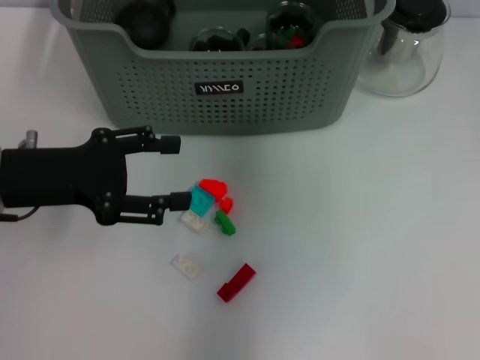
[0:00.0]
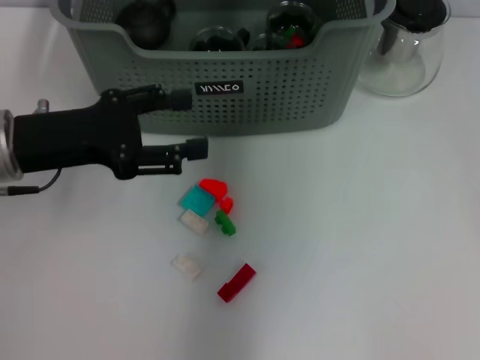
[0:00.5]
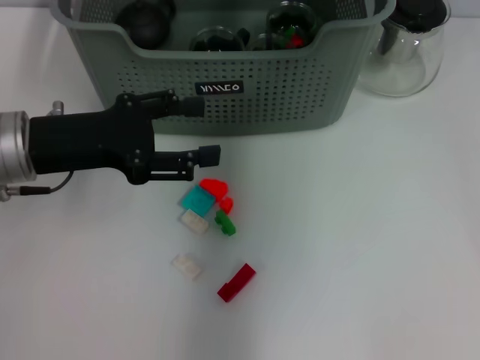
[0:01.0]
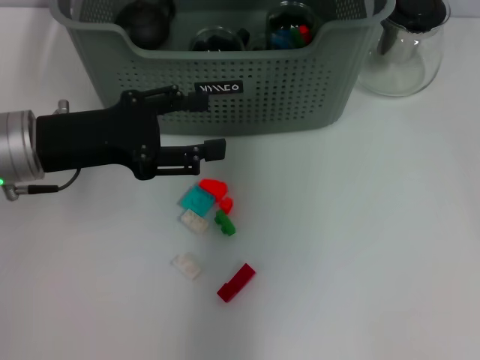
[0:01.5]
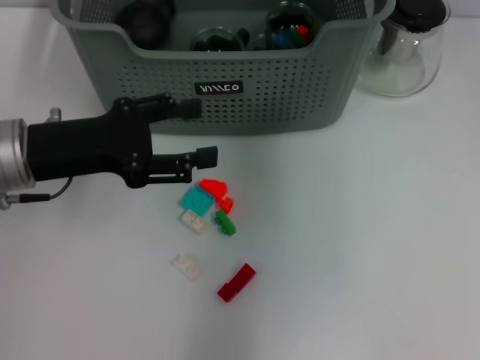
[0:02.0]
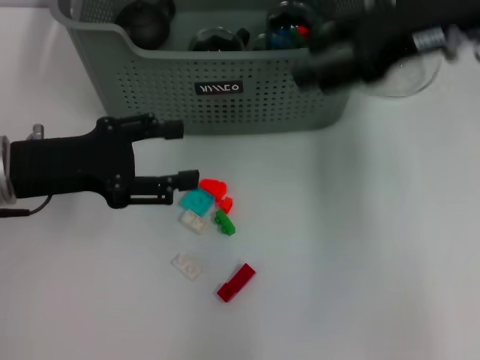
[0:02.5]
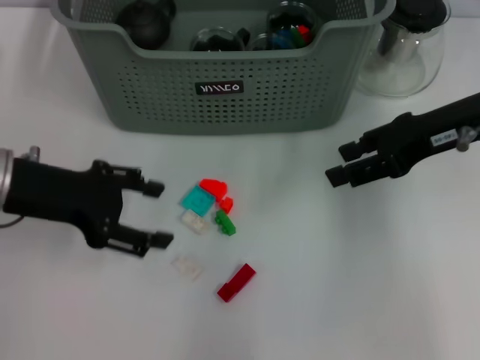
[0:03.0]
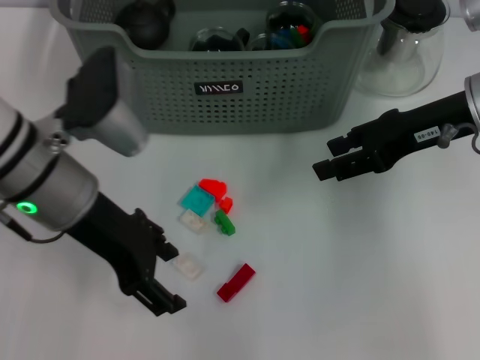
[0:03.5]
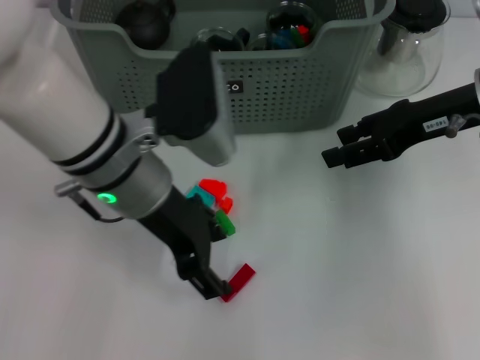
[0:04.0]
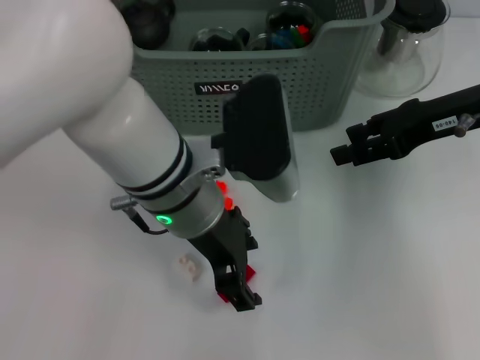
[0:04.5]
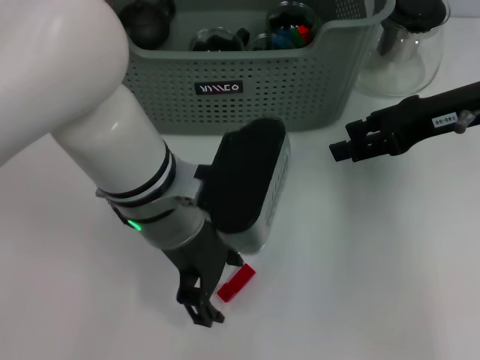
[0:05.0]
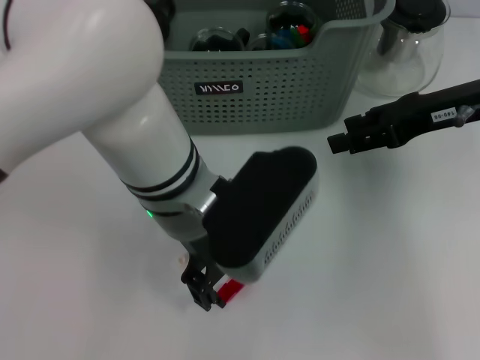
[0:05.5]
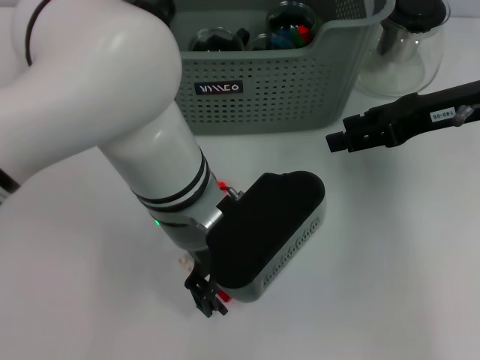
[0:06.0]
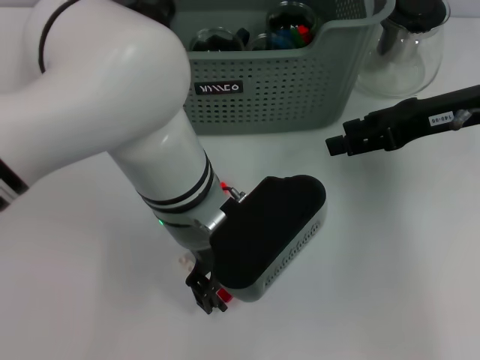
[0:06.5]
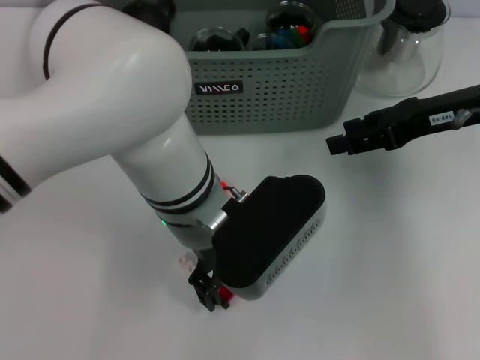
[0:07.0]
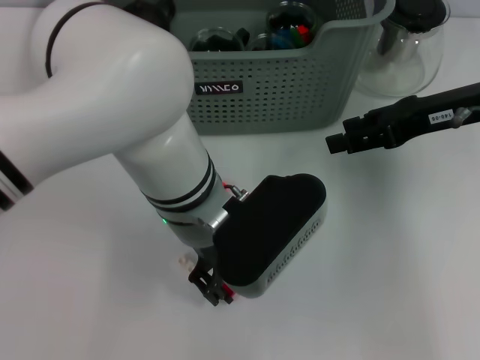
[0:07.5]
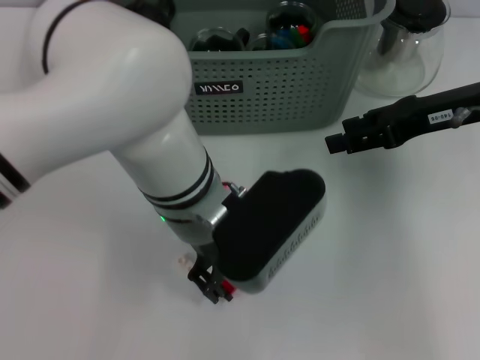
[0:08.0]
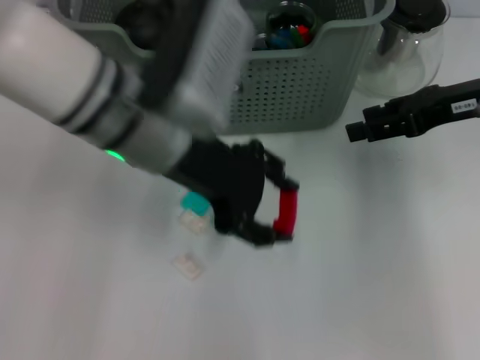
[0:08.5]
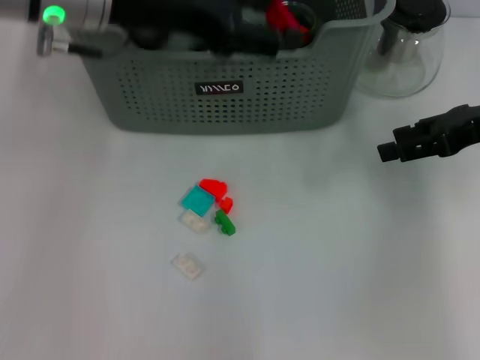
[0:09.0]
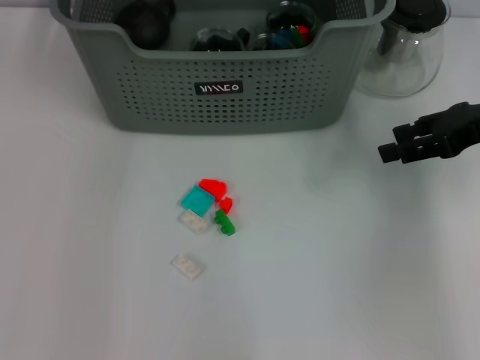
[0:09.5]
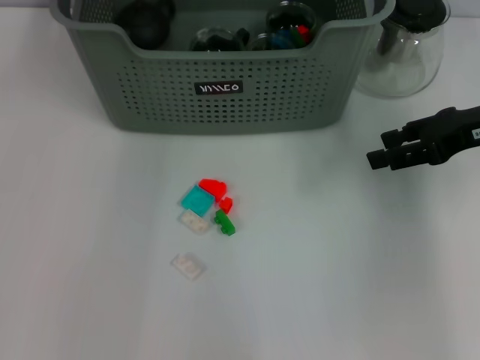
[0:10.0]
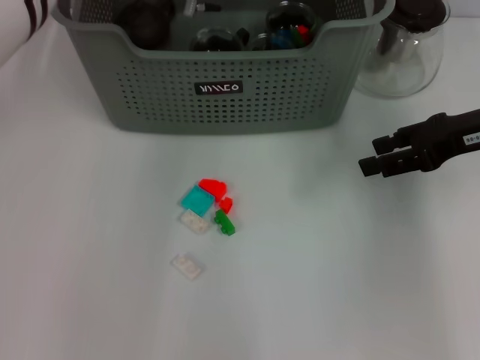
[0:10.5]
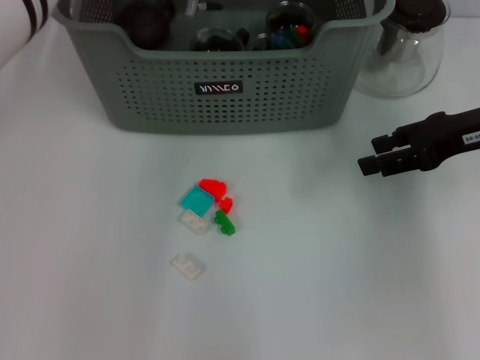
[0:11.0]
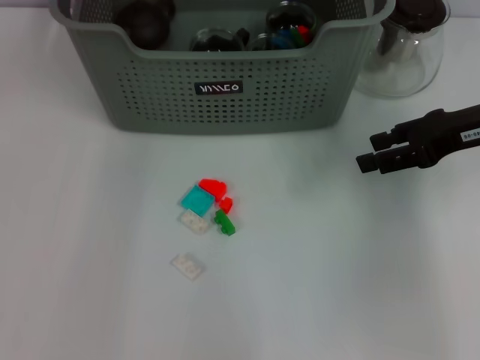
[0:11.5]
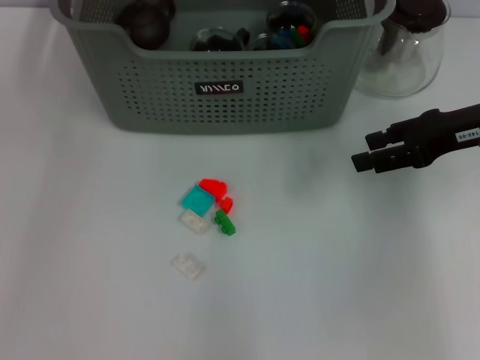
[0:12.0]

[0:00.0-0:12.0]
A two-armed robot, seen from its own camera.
Task of the whole recording: pick up the teacup on the table and place it into the storage bin, pick up the block on the table and place it into the storage bin.
Step, 1.5 to 7.5 s: Grasp the red block with right gripper.
Step, 8.0 to 11.0 s: Place the red block in the storage box with right gripper.
2.0 to 4.0 s: The right gripper is displaced downward, to the right and backward by some 20 cm. Meanwhile the left gripper travels to the right by approximately 15 cm.
4.0 to 6.0 s: The left gripper is displaced to the right by approximately 5 cm.
6.0 to 8.0 s: The grippers stay close to where they were, moving slightly.
8.0 to 10.0 s: The left gripper goes about 20 cm forward and upward.

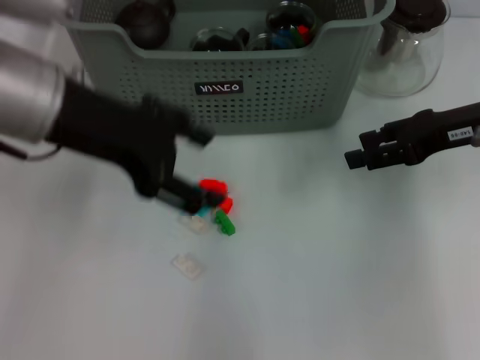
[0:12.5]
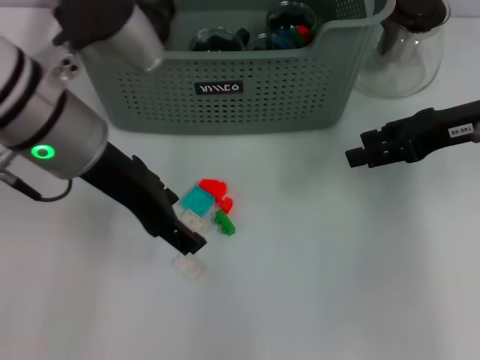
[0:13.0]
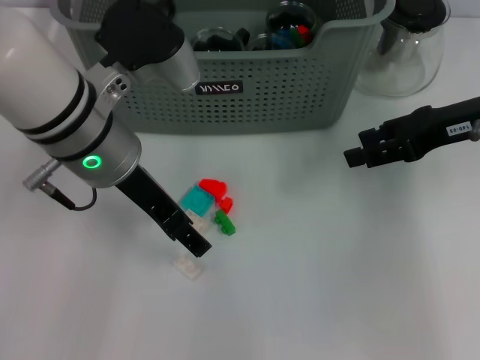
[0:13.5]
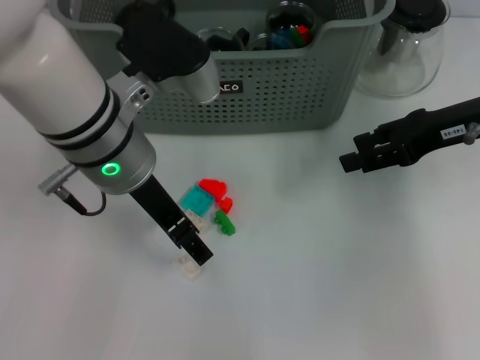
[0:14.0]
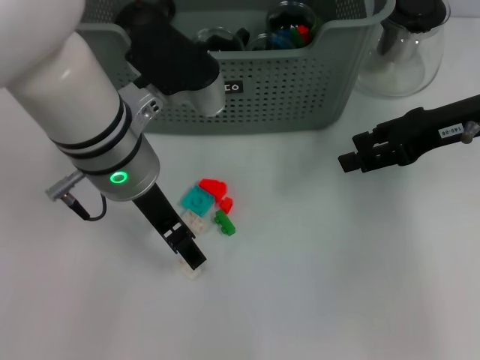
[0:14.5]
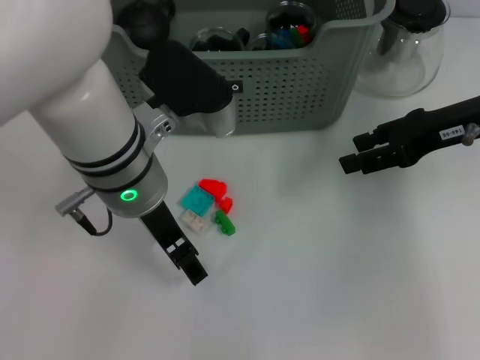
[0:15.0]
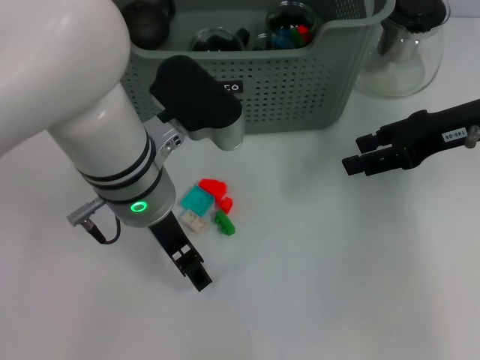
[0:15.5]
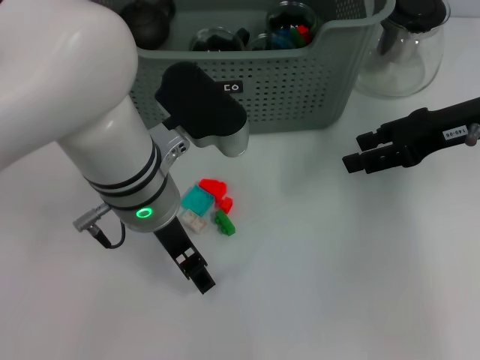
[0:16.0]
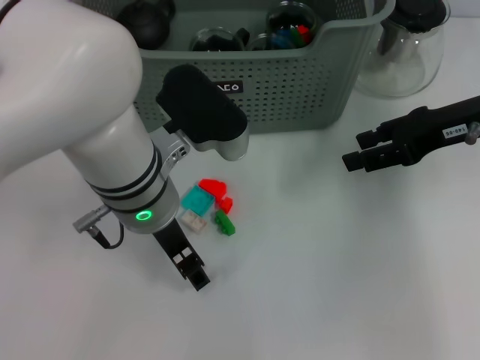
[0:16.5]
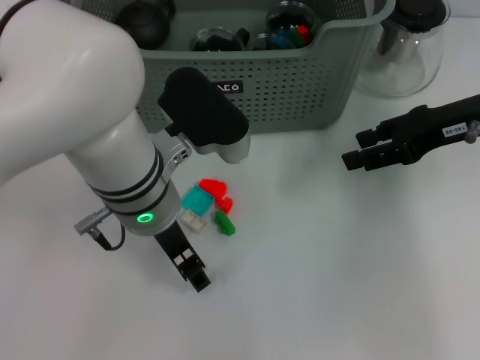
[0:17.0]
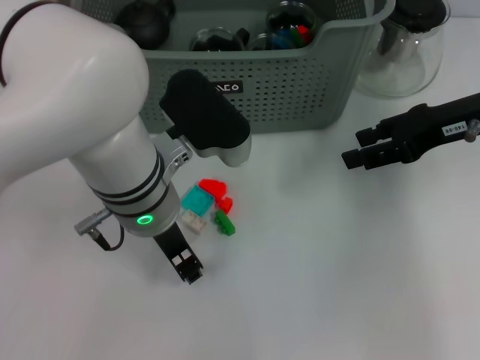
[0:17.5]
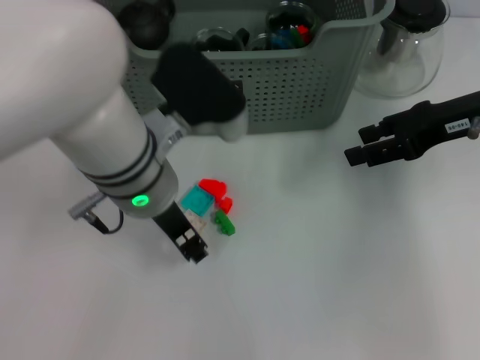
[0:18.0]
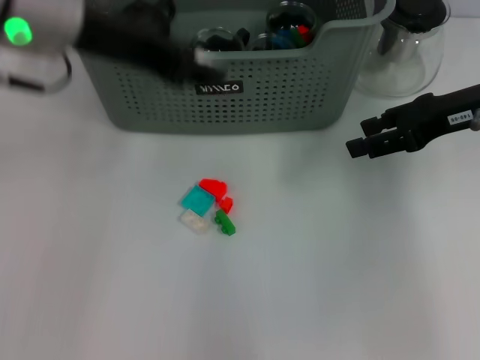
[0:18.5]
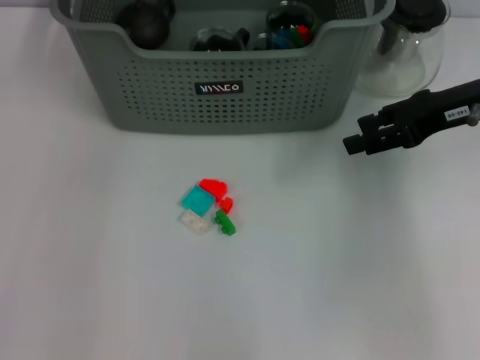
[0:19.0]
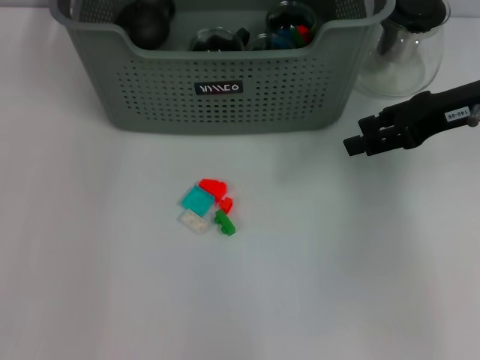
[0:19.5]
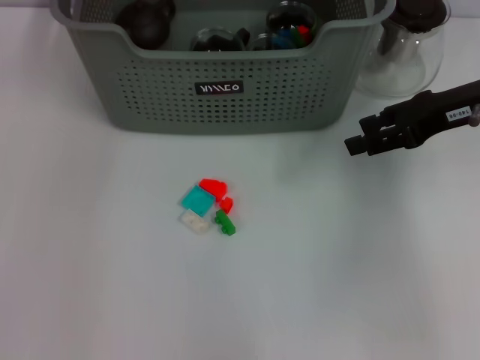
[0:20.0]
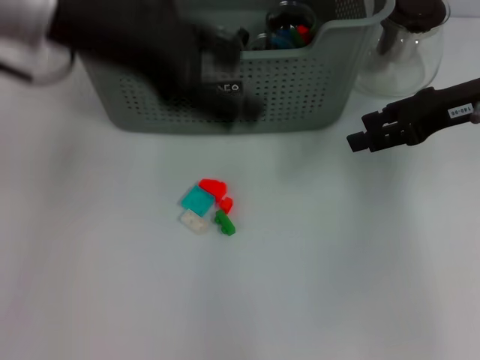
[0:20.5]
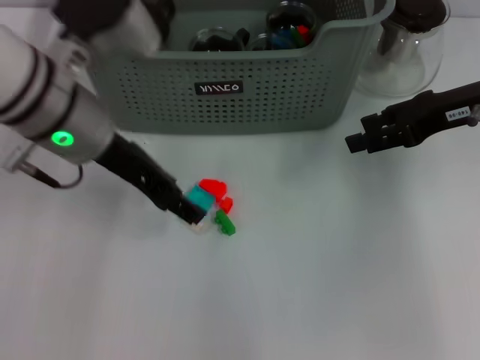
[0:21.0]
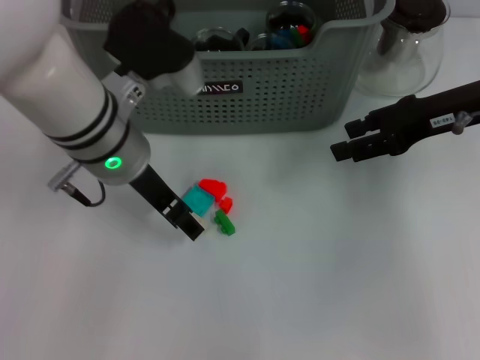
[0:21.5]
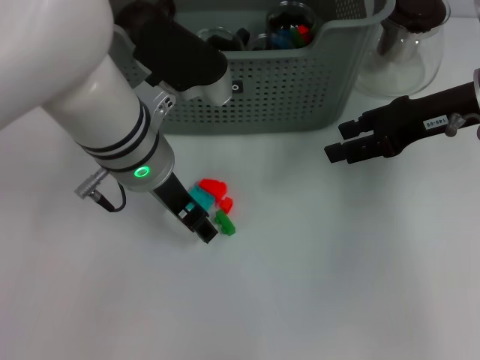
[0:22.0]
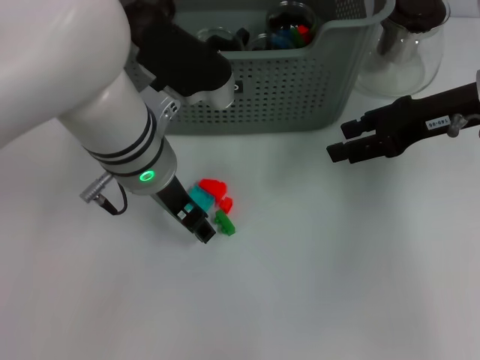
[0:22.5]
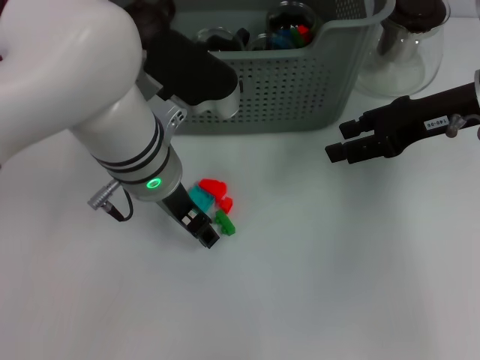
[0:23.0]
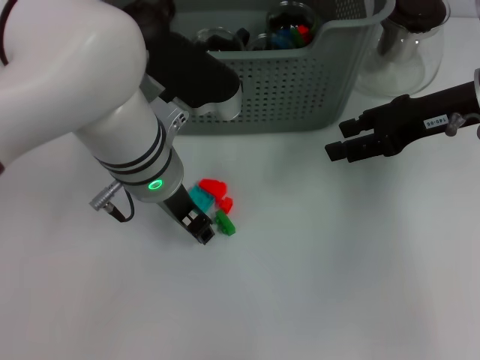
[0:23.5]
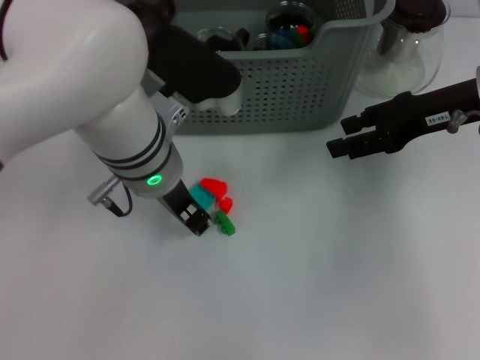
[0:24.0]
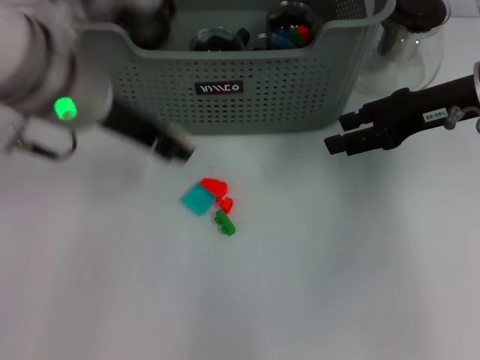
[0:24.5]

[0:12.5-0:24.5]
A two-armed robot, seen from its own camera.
Task of the whole recording: pick up the teacup on the table and place it into the storage bin, pick up the block on the table and place it into the storage bin.
Step, 12.5 to 17.5 s: Grasp the white block with left gripper.
Step, 18.0 to 19.5 s: Place the white block in the storage box with left gripper.
Step, 20.0 to 23.5 s: Grasp the white block with left gripper.
12.5 to 14.5 s: The left gripper travels to the right and downward by about 10 cm.
14.5 to 16.5 s: There are only small adjustments of the grippers.
16.5 to 18.5 s: The left gripper shifts some 15 cm upward and to the left, and closes up.
18.5 to 20.5 s: The left gripper goes forward and returns, some 15 cm each way, and opens up.
20.5 to 22.5 s: The left gripper heads downward and to the right, covering some 15 cm.
22.5 to 24.5 s: The left gripper moves upward, about 10 cm, and closes up.

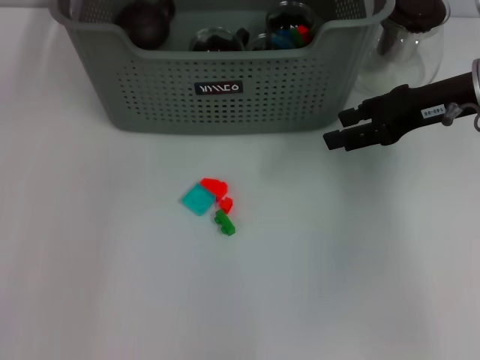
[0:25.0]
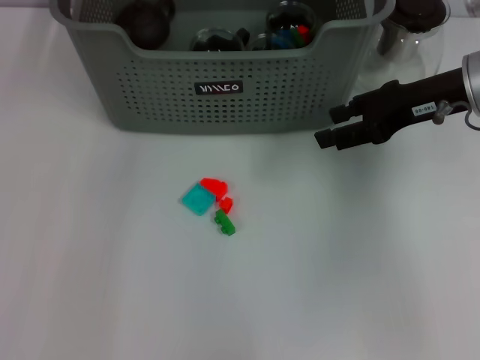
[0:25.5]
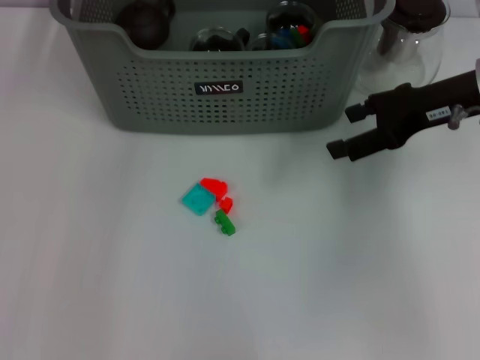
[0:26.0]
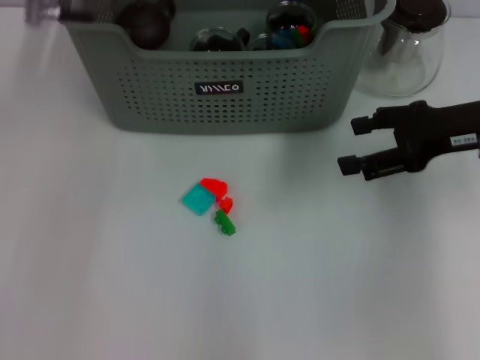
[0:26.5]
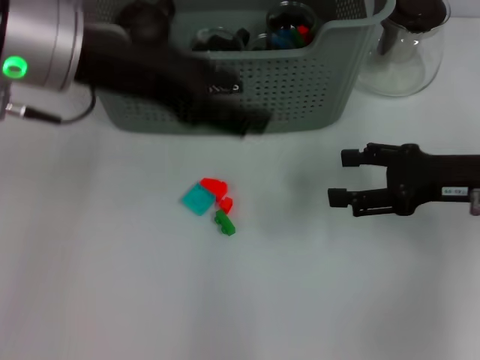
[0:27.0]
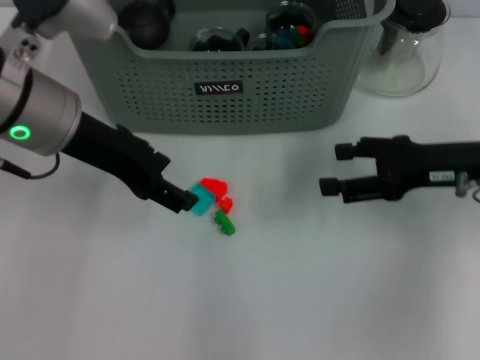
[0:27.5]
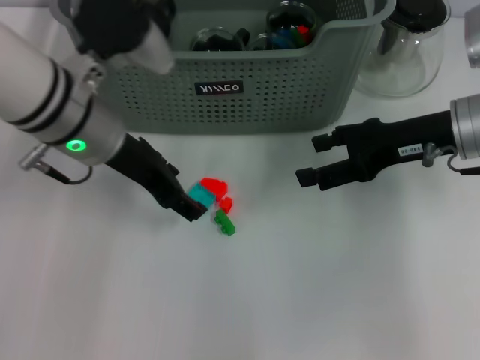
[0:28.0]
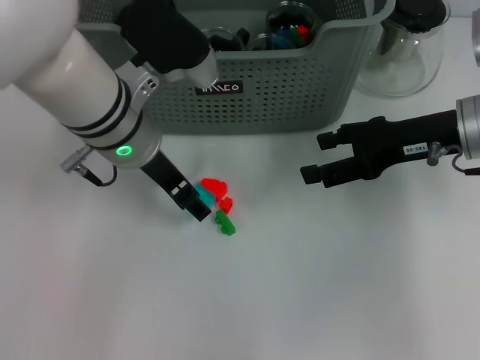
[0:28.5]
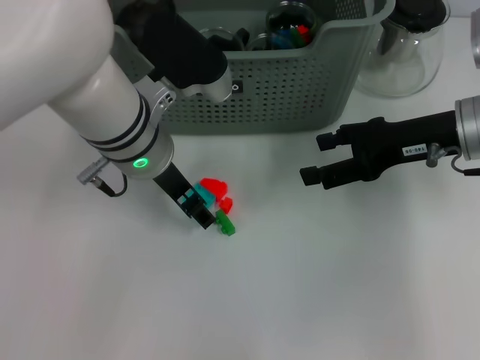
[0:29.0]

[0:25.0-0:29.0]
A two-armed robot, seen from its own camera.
Task of the whole recording: pick up the teacup on the table and place it into the storage bin, pick up the block on the table and place it into the storage bin.
25.0 to 27.0 s: The left gripper goes roughly 5 cm downward, and opens up. Meanwhile the right gripper travels backward and downward by approximately 10 cm.
27.0 to 29.0 s: The left gripper shifts approximately 15 cm downward and to the right, while the right gripper changes place by roughly 5 cm.
